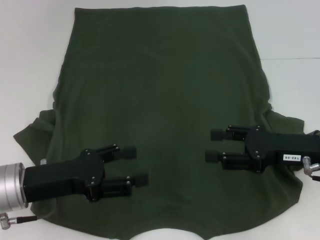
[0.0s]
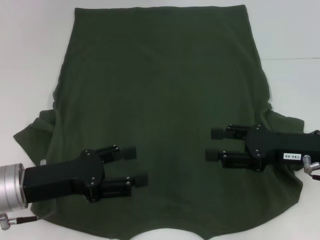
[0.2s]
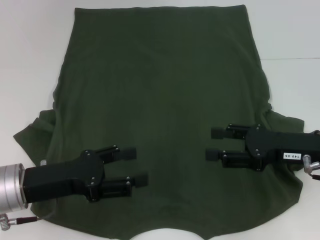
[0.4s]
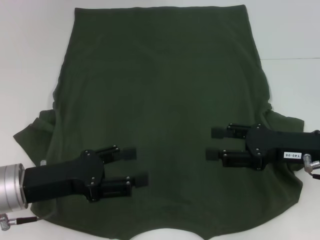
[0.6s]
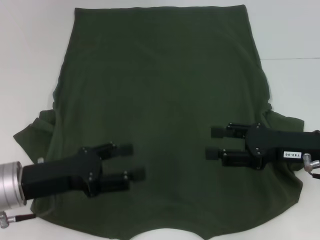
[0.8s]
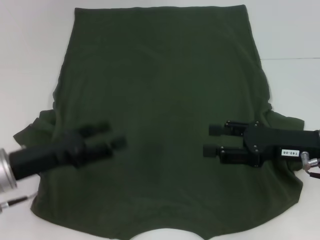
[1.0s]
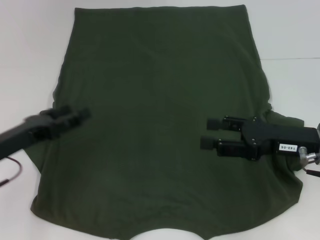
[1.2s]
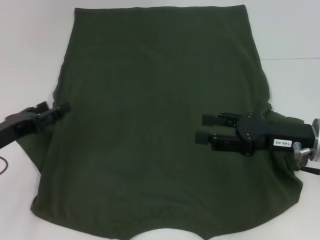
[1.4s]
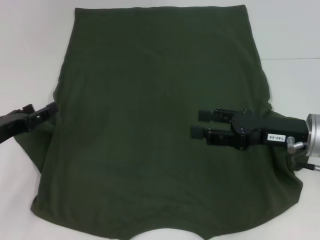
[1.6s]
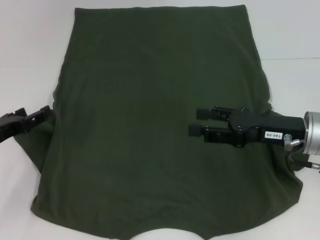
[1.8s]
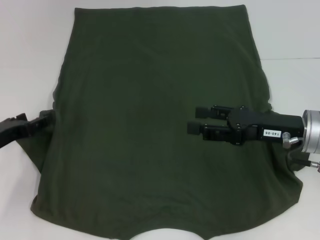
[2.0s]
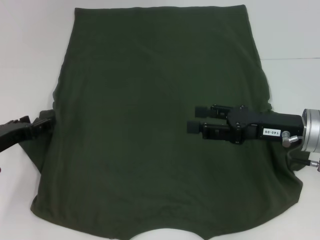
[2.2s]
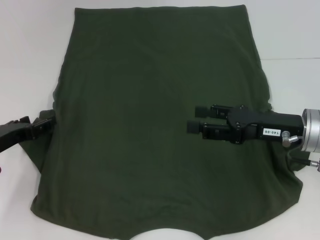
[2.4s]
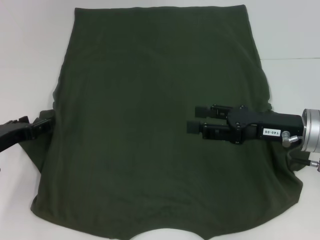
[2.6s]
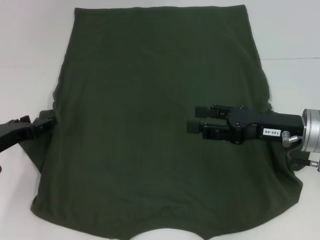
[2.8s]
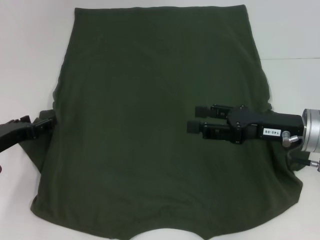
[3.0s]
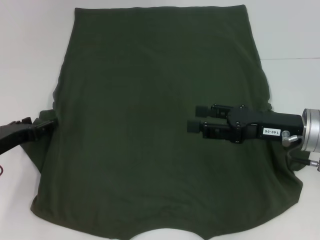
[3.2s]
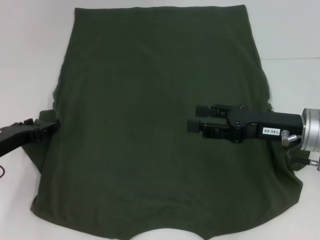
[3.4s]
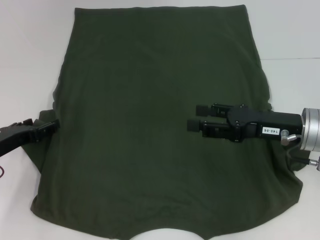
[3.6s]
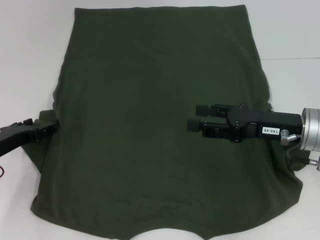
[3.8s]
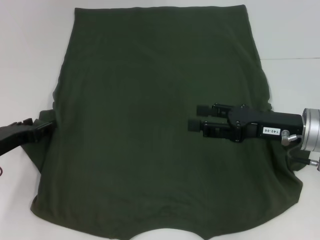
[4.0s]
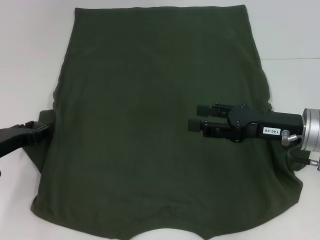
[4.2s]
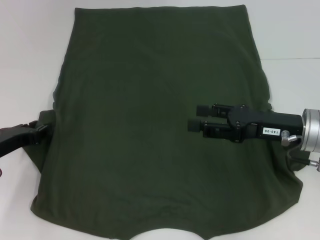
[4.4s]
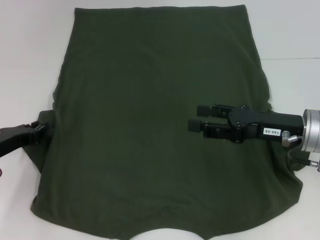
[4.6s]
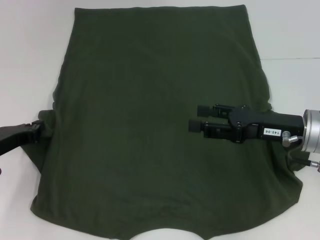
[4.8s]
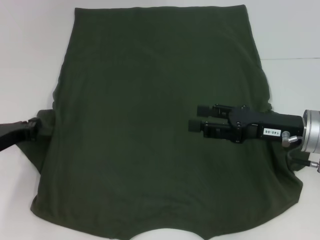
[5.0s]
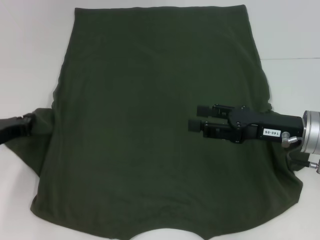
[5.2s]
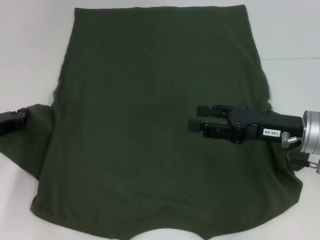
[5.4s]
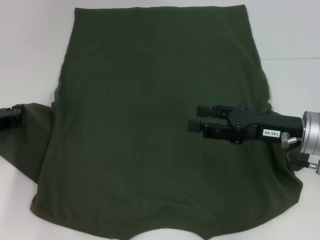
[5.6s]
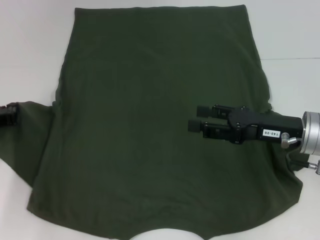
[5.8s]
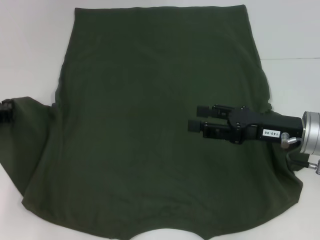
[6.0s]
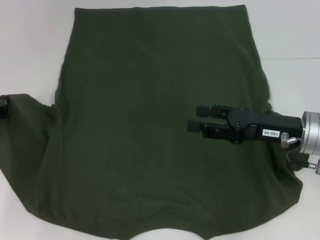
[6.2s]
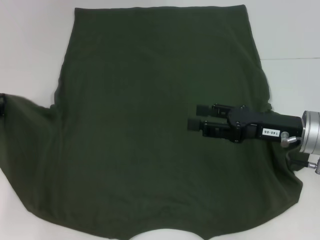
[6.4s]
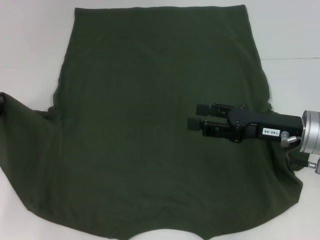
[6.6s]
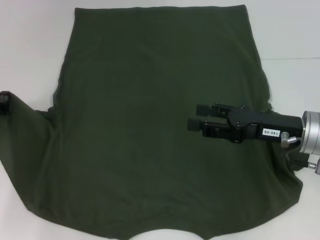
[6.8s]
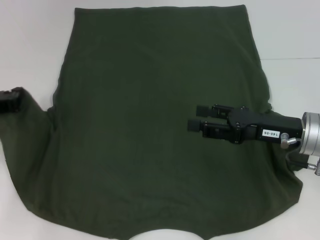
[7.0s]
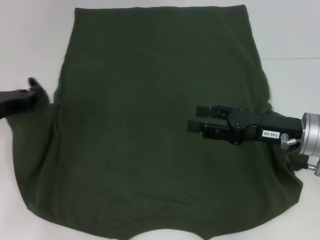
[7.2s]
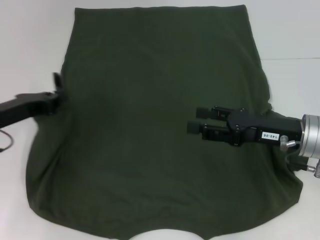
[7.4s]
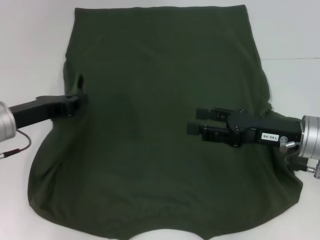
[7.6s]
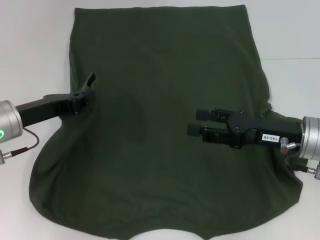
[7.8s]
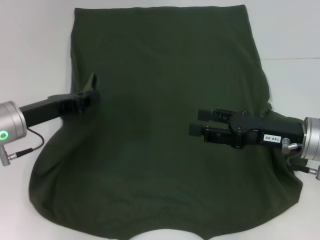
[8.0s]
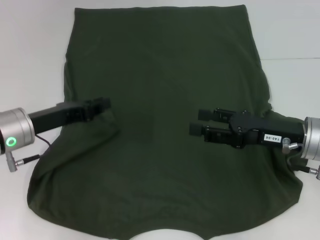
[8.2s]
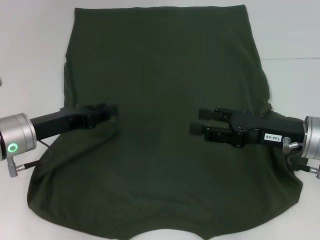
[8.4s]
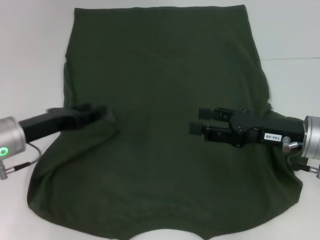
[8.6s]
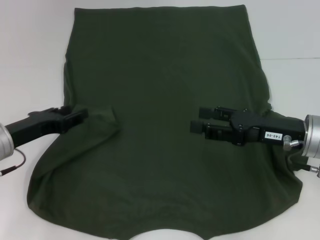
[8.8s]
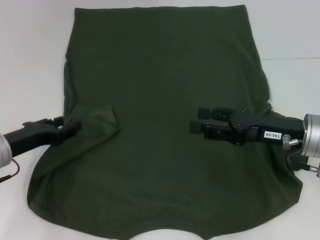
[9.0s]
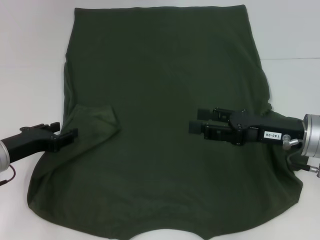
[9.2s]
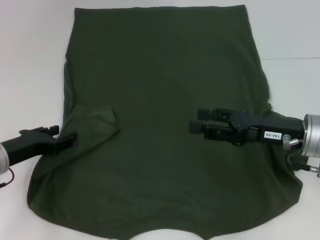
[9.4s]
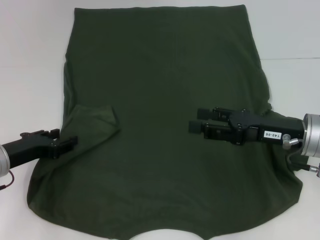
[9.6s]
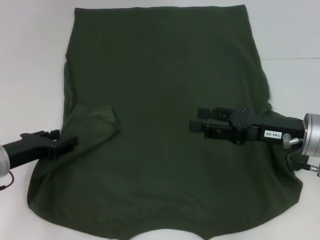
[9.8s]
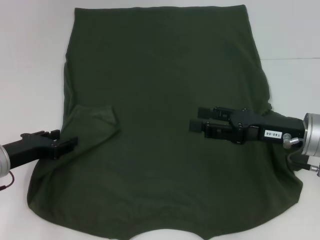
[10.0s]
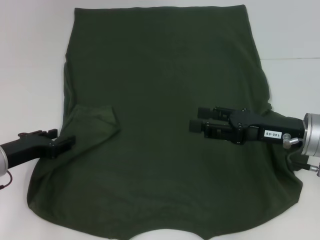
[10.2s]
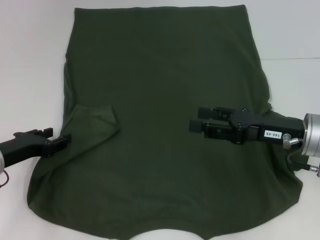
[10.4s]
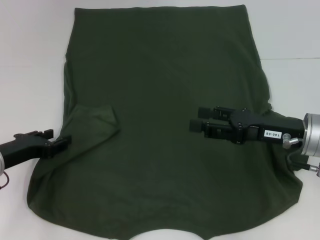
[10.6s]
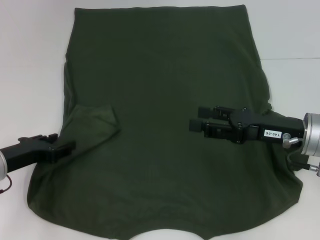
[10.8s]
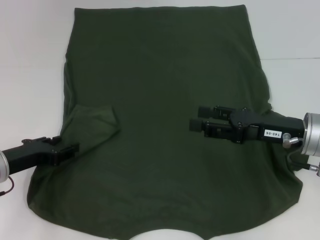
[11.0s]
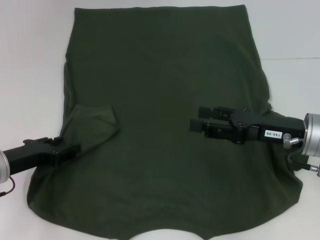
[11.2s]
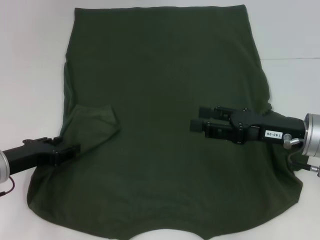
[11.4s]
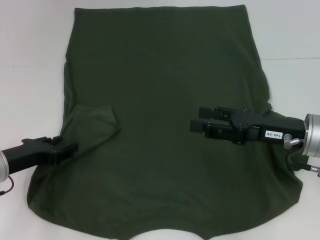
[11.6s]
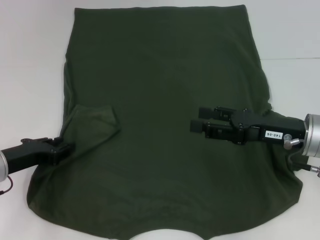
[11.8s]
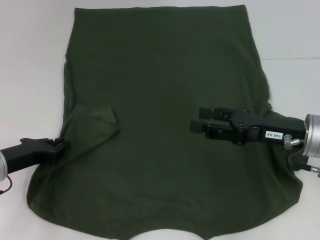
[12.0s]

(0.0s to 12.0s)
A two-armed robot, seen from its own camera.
0.0s - 1.6s: The left gripper shifts roughly 10 cm to the left.
1.6s - 3.0s: The grippers move only a little.
3.0s - 4.4s: The two grippers keep their place.
4.4s - 6.0s: The left gripper closes its fingers.
6.0s - 7.6s: The left gripper goes about 5 cm to the right.
7.6s - 9.0s: The left gripper moves roughly 5 cm, and opens.
9.0s - 12.0s: The grippers stay close to where they were, moving slightly.

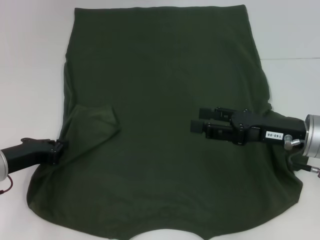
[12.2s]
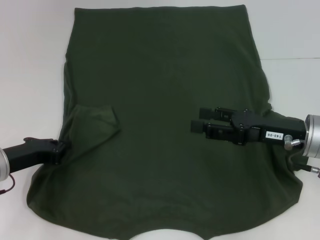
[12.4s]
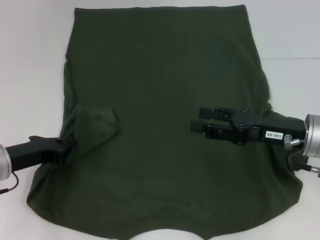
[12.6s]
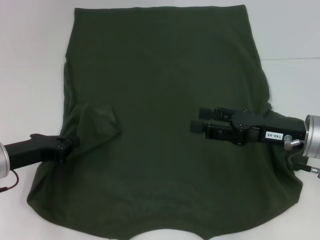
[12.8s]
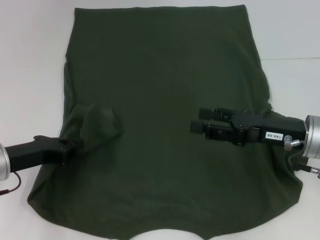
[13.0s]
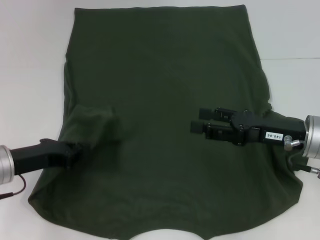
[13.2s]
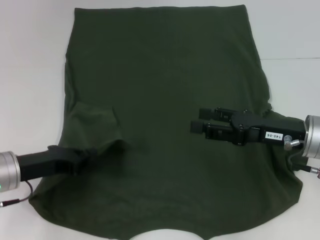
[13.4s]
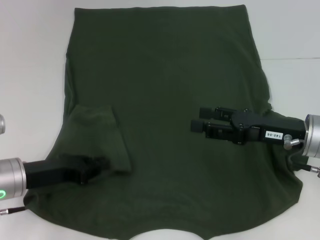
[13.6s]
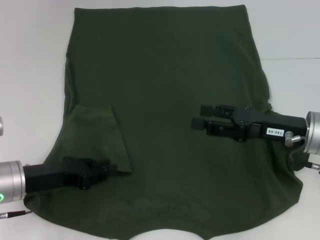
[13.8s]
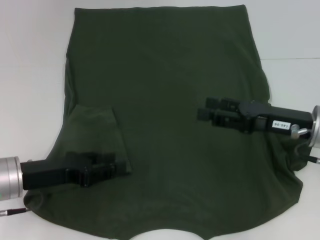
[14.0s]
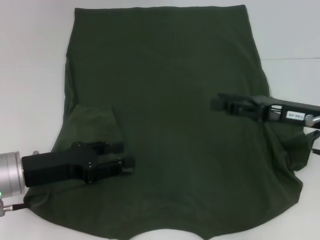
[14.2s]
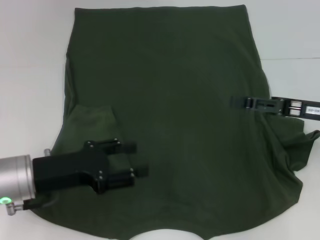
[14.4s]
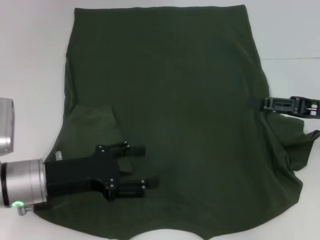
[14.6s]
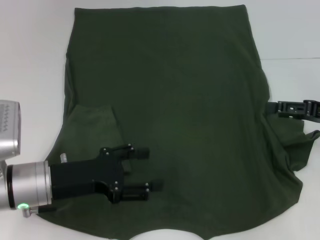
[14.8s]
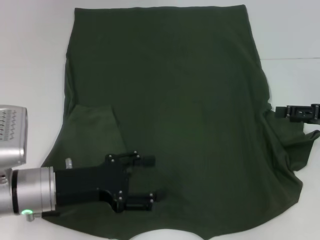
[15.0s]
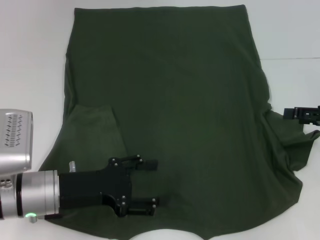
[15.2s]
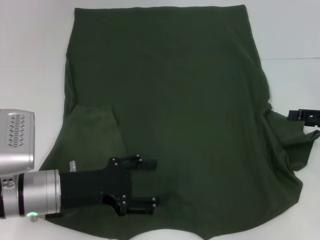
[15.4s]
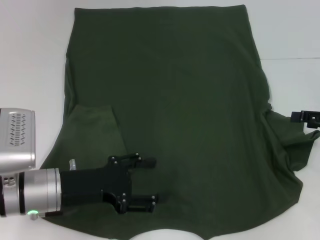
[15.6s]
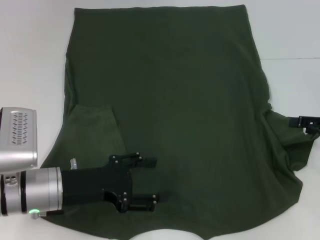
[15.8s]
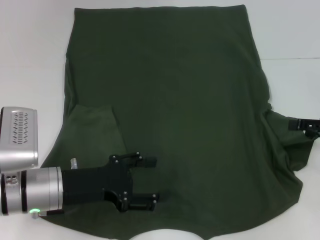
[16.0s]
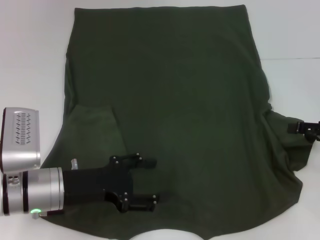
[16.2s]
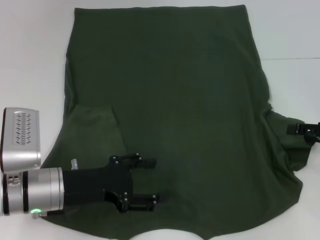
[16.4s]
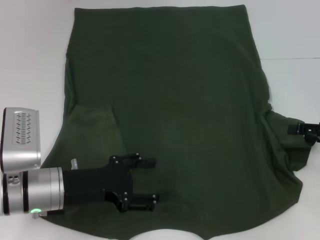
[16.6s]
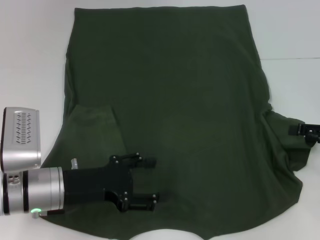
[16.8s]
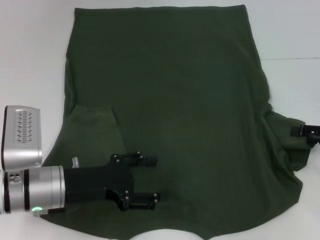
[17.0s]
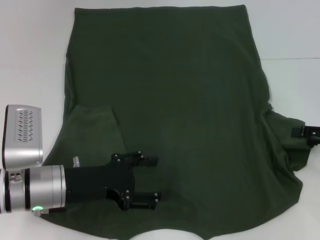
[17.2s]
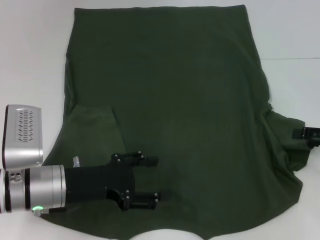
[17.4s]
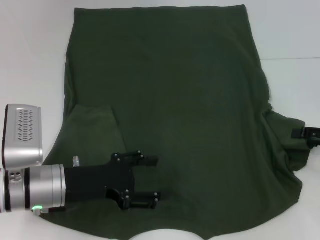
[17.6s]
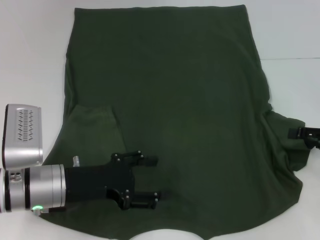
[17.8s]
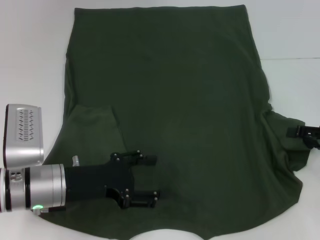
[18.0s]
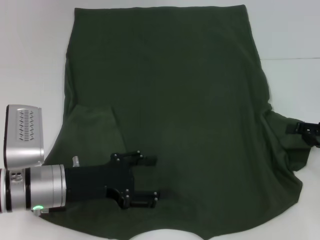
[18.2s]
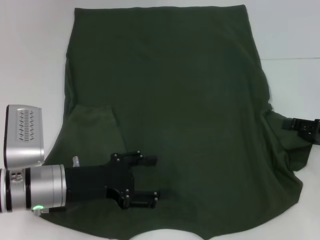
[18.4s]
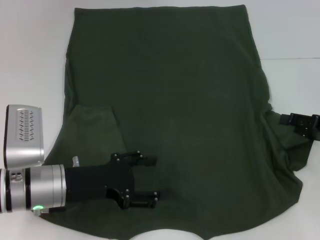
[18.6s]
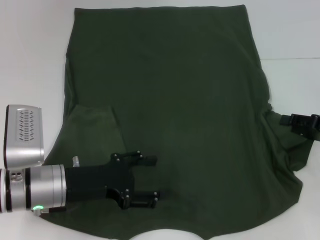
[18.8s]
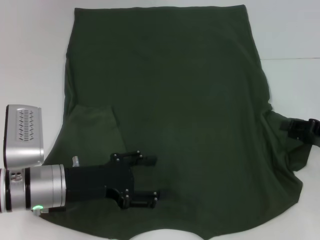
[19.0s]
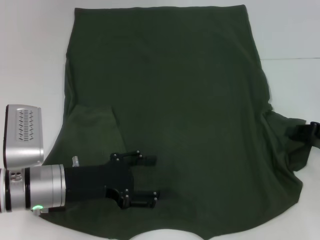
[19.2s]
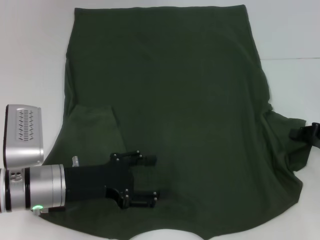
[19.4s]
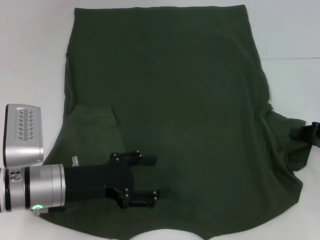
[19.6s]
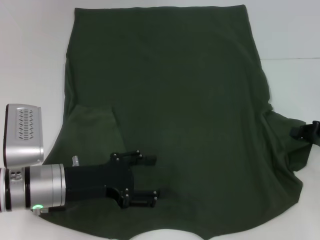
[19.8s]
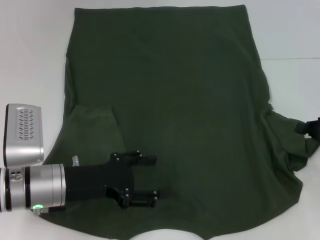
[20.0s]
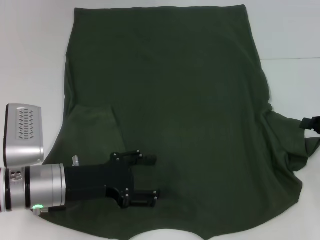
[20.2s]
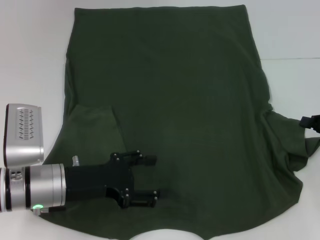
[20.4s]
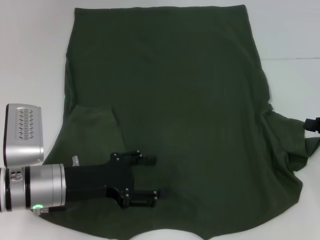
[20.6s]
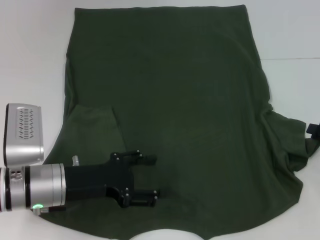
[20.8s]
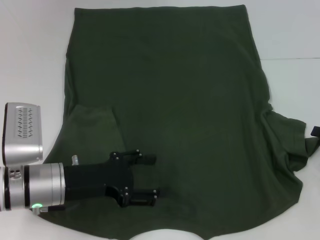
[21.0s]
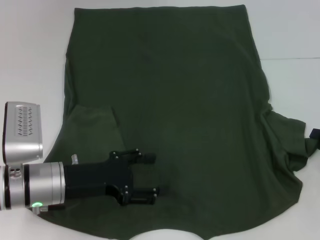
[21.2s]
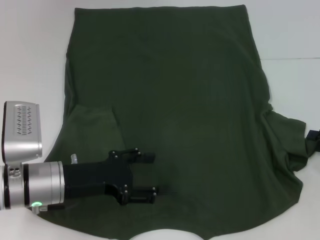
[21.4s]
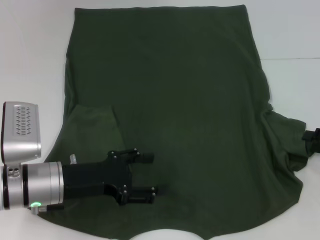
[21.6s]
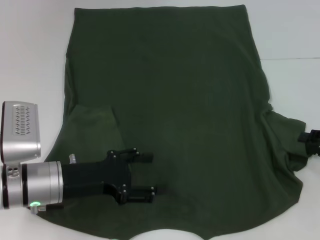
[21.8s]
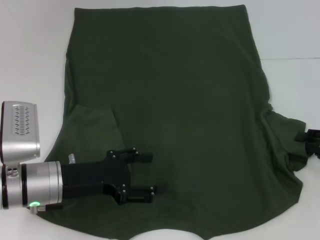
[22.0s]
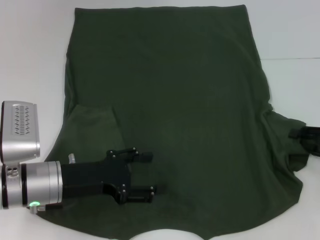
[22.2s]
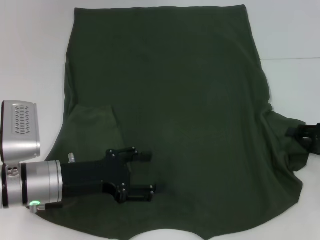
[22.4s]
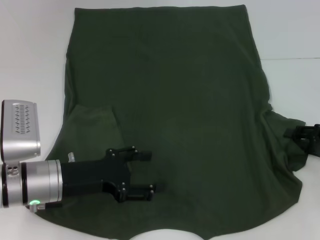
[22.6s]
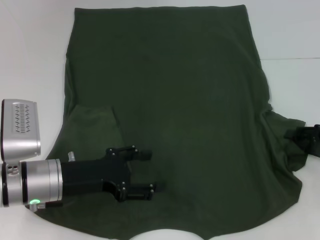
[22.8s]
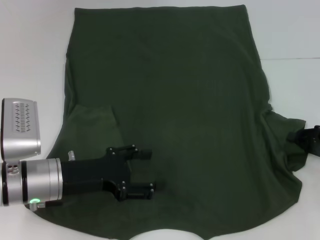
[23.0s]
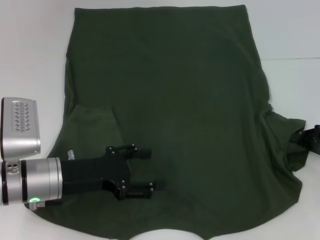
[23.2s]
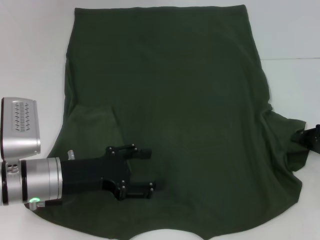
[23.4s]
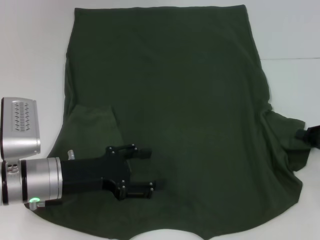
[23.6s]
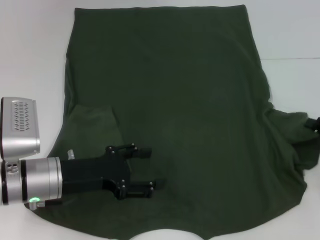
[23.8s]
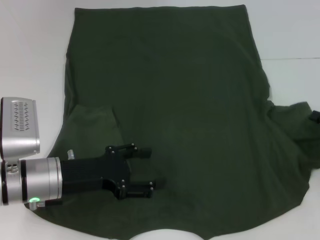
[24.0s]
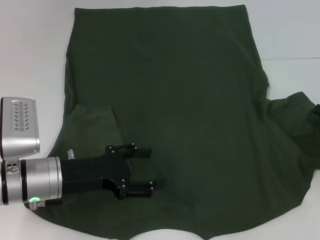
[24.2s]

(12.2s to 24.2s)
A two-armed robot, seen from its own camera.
13.8s - 15.2s: The left gripper shifts some 5 cm to the right, and opens up. The right gripper moves to the right, approximately 10 cm.
15.2s - 18.2s: The grippers move only a little.
19.8s - 21.2s: The right gripper opens its fingers.
21.2s - 22.6s: The grippers move only a little.
22.6s - 24.2s: The right gripper closes up.
